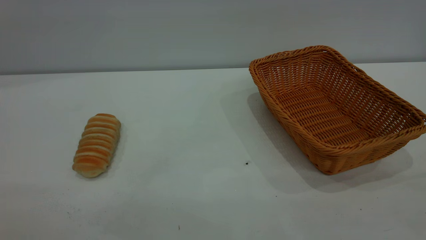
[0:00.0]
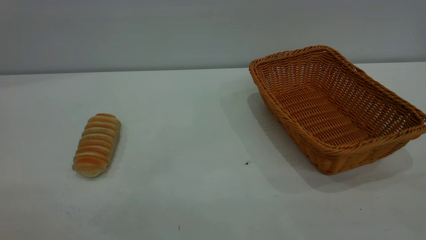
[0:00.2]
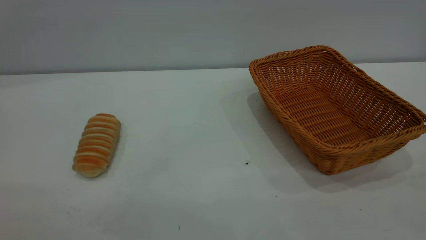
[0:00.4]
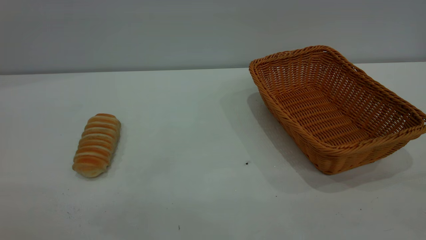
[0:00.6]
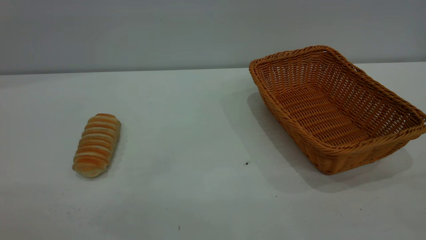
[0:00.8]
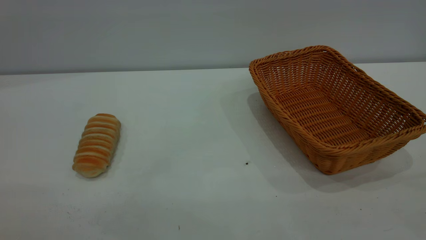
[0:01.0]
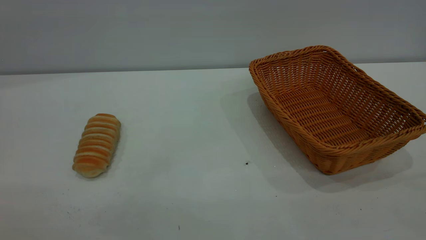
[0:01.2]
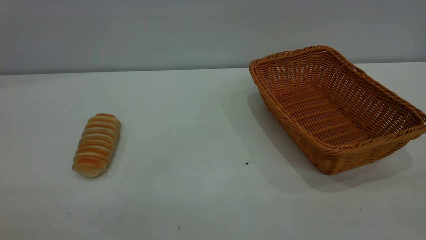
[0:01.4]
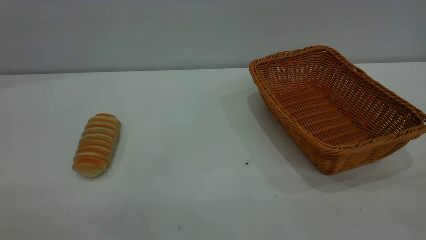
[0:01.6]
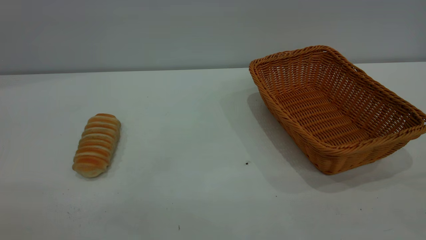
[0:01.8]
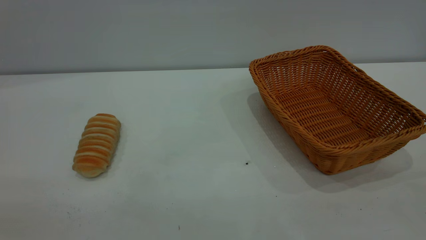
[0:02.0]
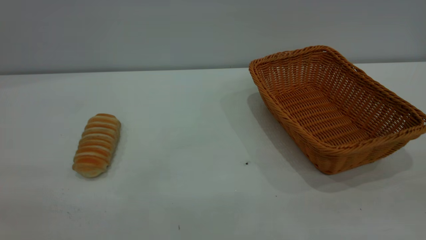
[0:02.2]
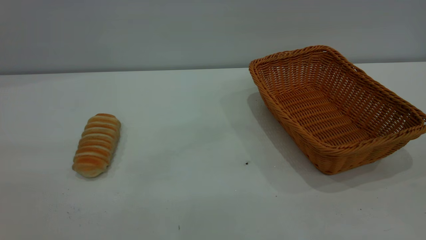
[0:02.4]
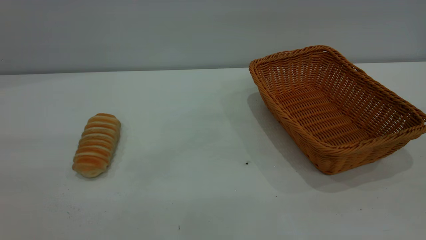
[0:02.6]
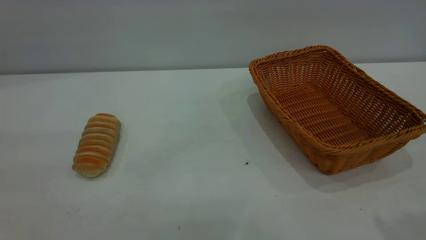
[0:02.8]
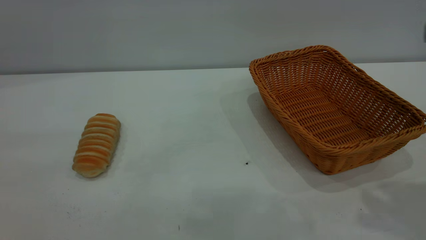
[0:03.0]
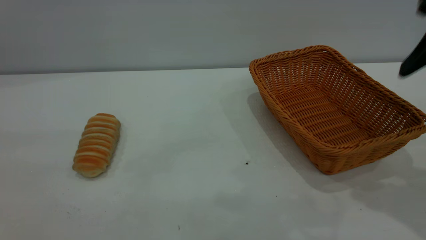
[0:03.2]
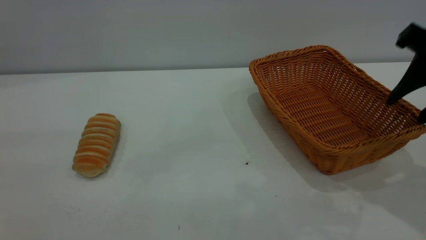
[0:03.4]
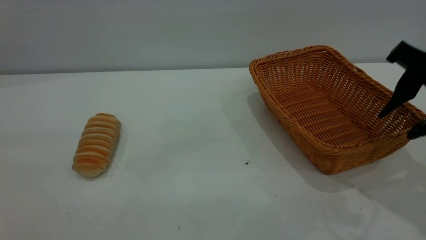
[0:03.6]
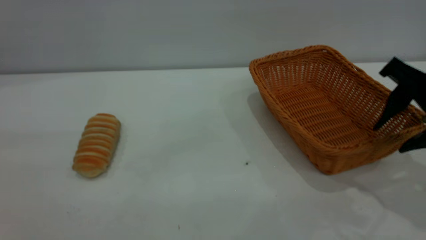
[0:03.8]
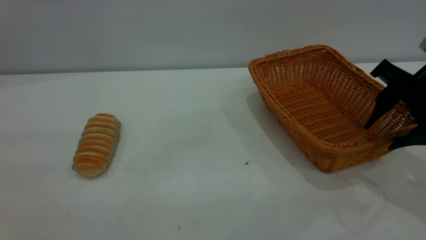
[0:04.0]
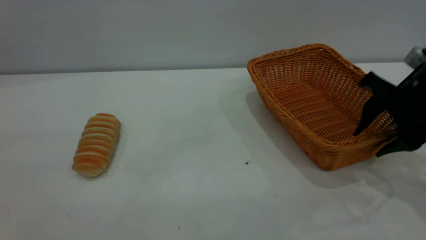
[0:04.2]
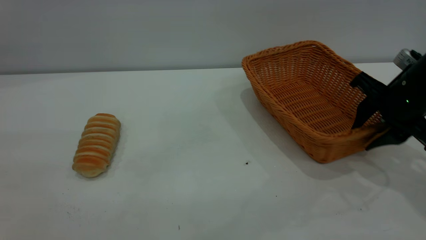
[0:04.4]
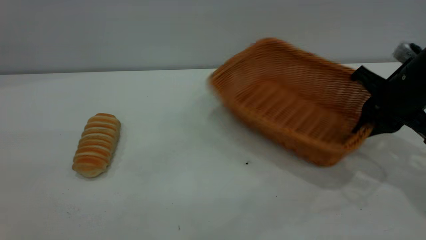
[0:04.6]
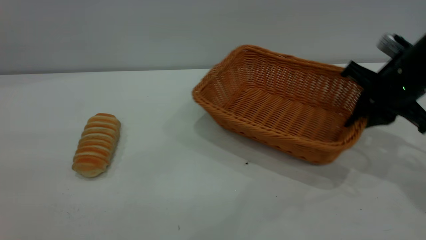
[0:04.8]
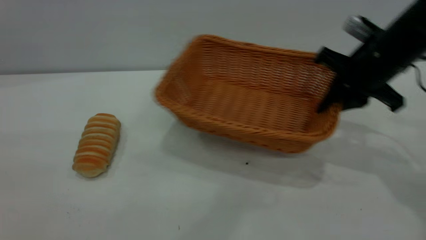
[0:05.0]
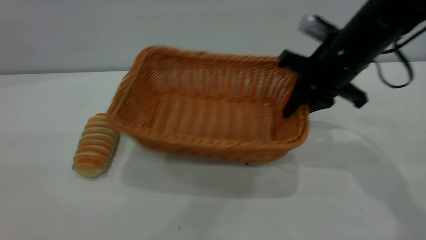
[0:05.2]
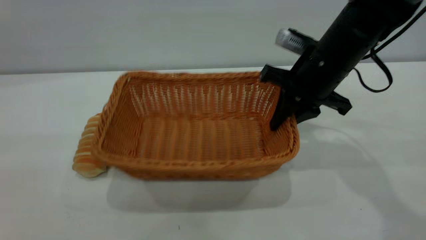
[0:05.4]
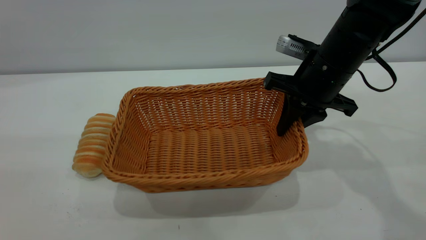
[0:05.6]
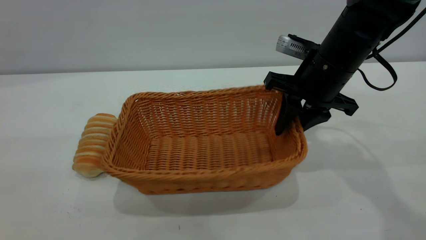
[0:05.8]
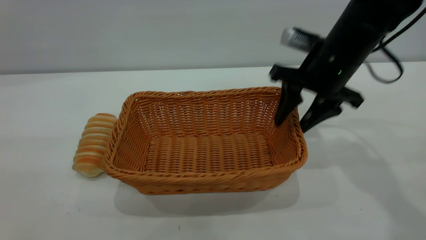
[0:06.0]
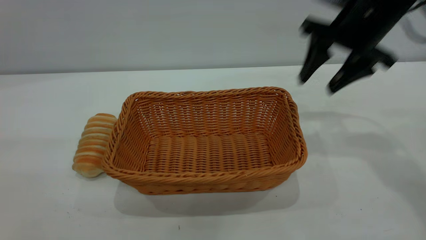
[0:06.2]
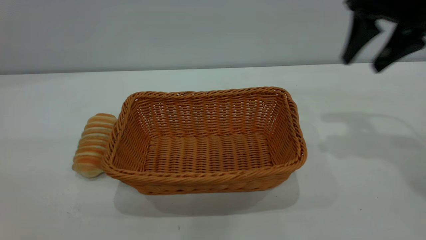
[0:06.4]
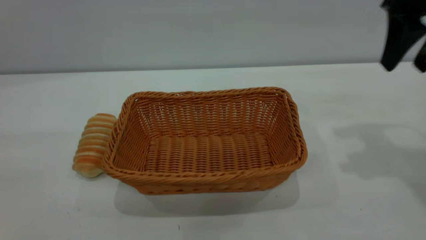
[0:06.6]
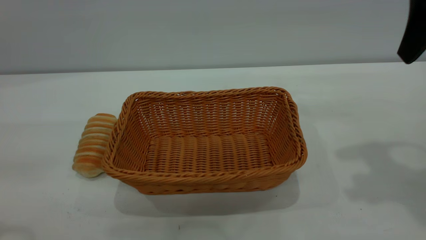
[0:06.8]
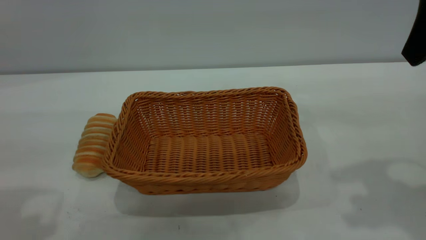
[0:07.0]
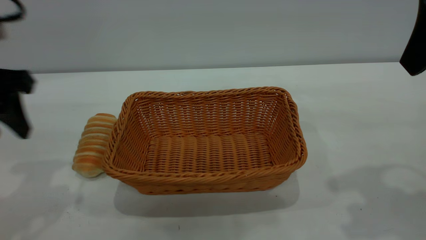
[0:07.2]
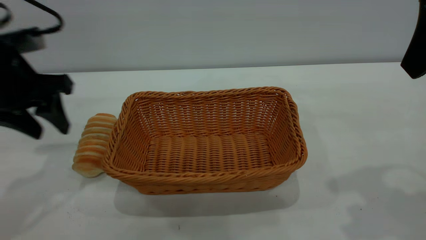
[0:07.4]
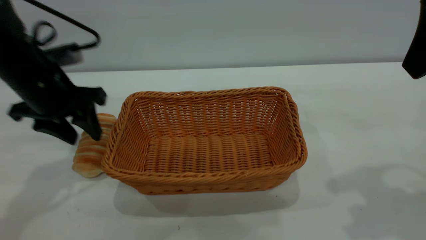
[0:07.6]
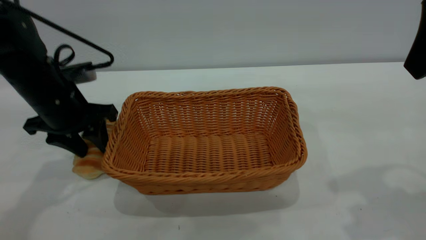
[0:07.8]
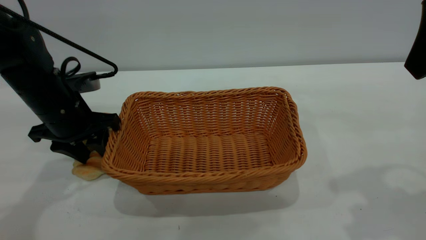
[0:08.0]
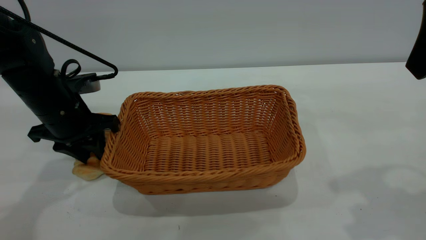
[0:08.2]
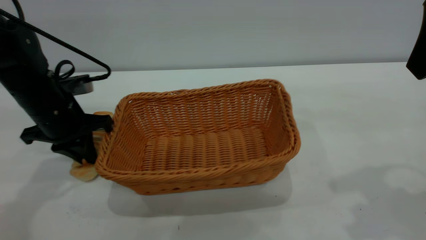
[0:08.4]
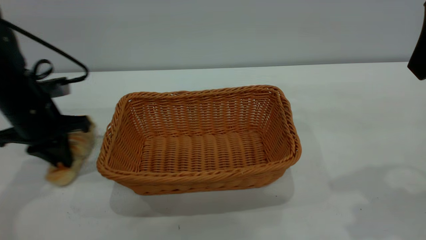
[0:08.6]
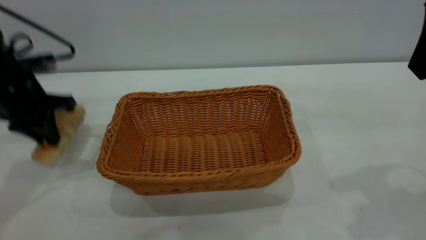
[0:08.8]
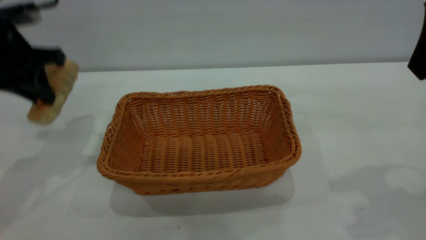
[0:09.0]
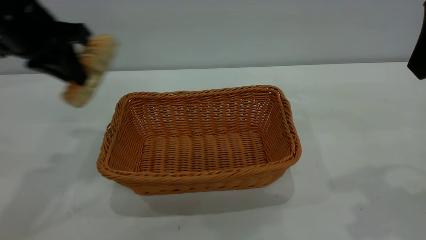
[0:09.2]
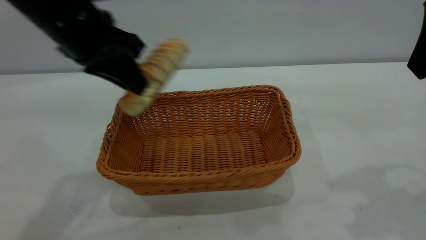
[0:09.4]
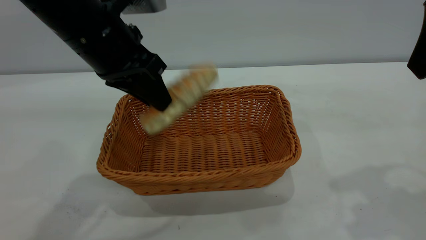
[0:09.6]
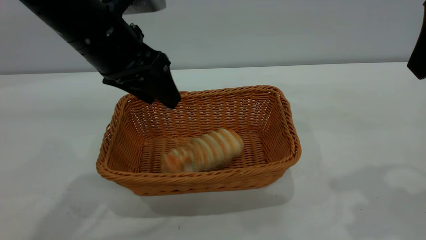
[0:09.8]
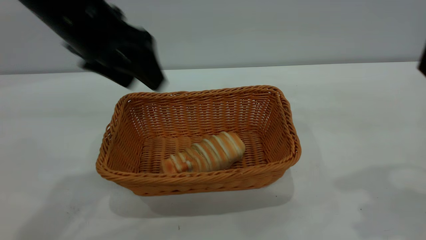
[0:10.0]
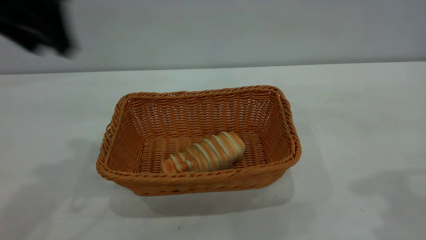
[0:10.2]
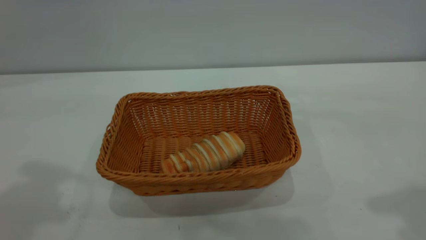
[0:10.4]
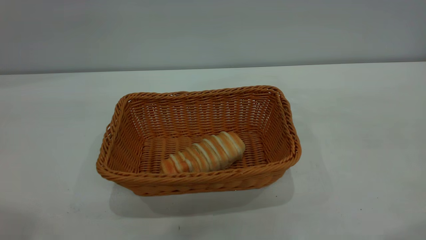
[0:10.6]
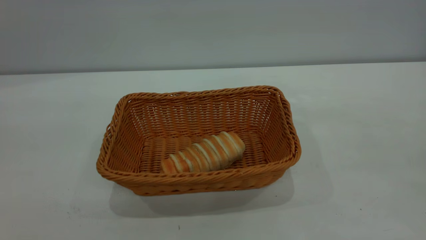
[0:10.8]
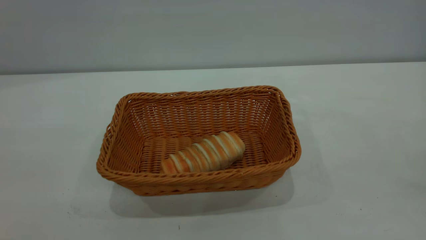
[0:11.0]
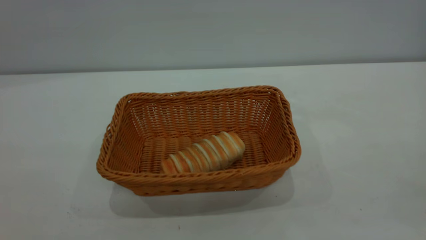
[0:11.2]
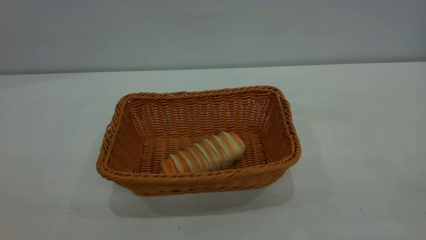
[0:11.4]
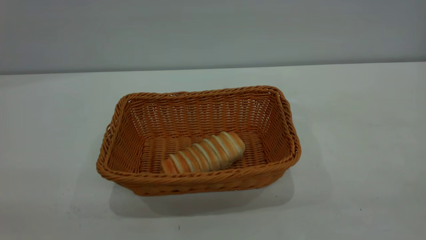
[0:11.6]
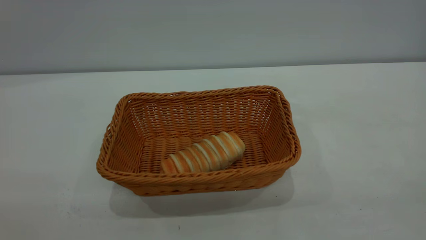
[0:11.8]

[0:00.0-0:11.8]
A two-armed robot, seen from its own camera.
Task of the whole recording: One hand grasps the yellow basket and places it in the middle of the table, while the other hand picks up the long bread and puts it into the yellow basket.
Step, 0:00.0 to 0:06.0: Move the basket to the center of view.
Step, 0:09.0 to 0:10.0: place the bread into the basket.
0:00.0 to 0:01.4: Both grippers stay about where they are.
0:03.0 to 0:04.4: The right gripper heads downward and forward, covering roughly 20 cm, and closes up.
0:04.4 to 0:06.0: The right gripper heads to the left, covering approximately 10 cm, and opens its fingers.
0:06.0 to 0:07.4: The left gripper heads forward and downward, covering roughly 30 cm, while the right gripper heads upward, backward and to the right, covering roughly 20 cm.
0:07.4 to 0:08.8: The left gripper moves about 10 cm downward and comes back, and closes up.
0:08.8 to 0:10.4: The left gripper moves upward and backward, some 25 cm, and opens; the right gripper is displaced backward by some 5 cm.

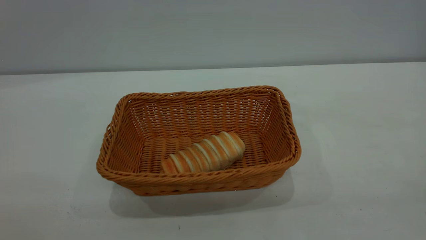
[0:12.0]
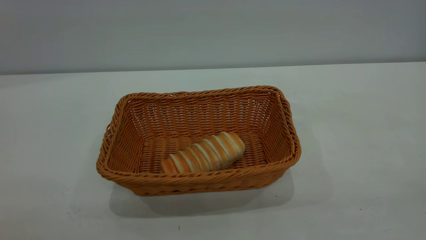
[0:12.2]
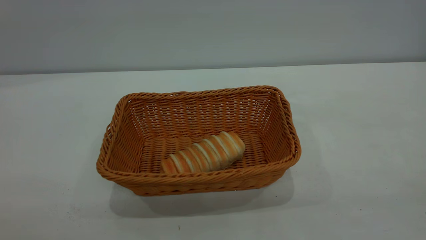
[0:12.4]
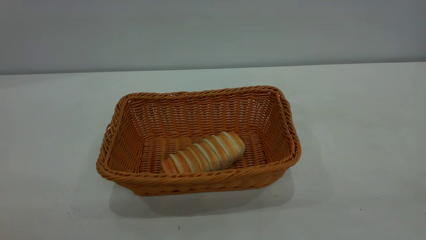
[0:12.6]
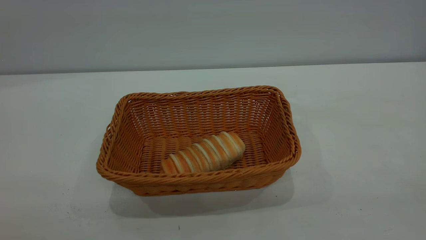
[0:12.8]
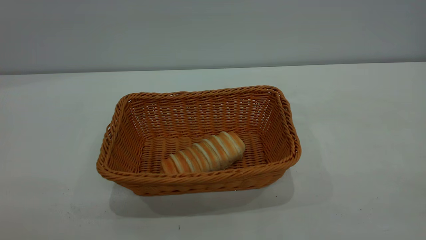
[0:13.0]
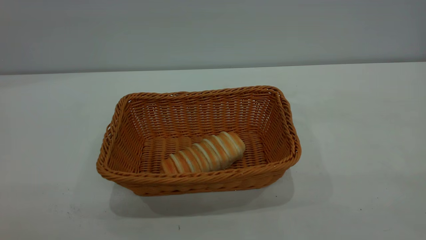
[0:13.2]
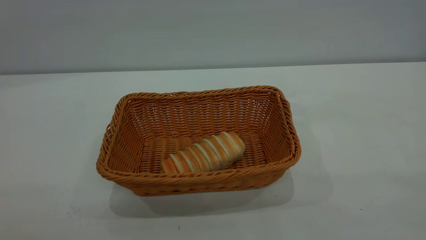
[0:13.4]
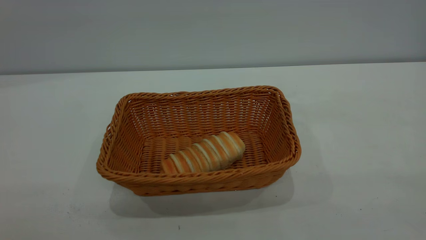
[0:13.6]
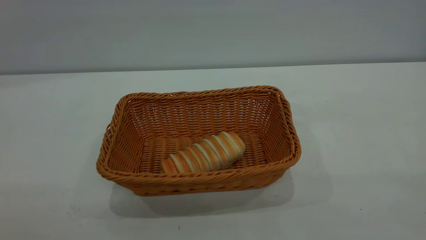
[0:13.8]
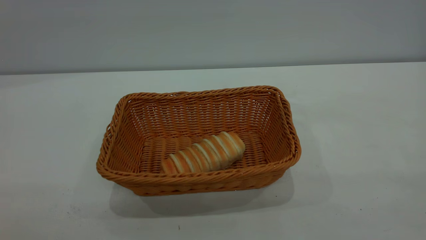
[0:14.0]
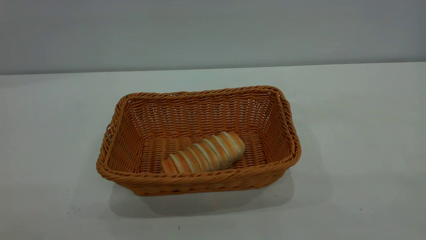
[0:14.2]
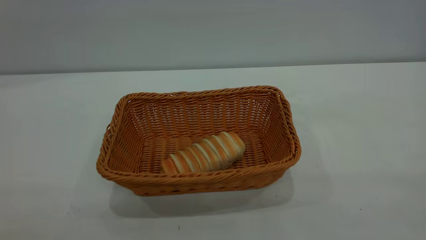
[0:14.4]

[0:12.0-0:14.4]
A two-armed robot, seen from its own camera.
Task of the whole recording: One hand grasps the yellow basket and places it in the middle of the table, while the other hand picks up the long bread and puts it into the yellow basket.
0:13.2 to 0:14.4: Neither gripper changes place.

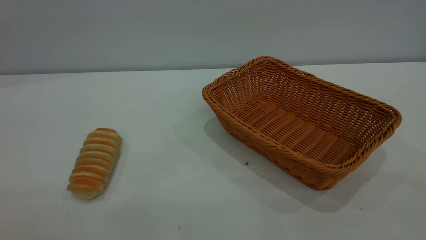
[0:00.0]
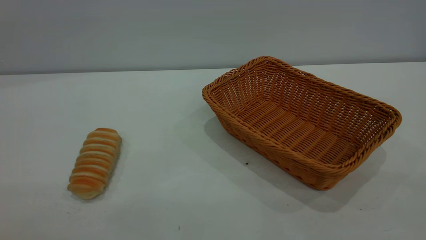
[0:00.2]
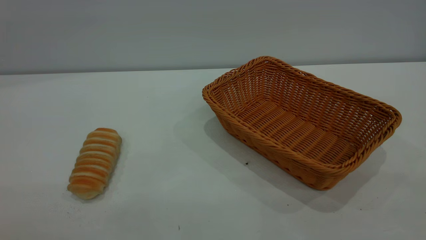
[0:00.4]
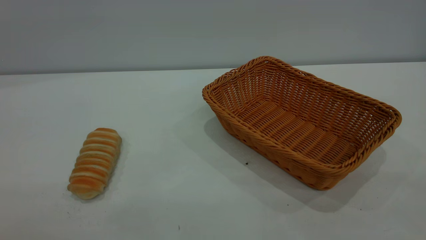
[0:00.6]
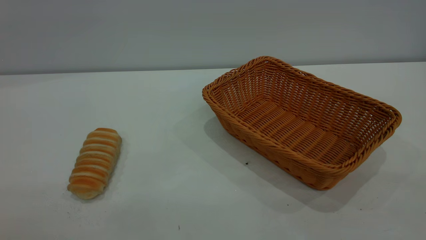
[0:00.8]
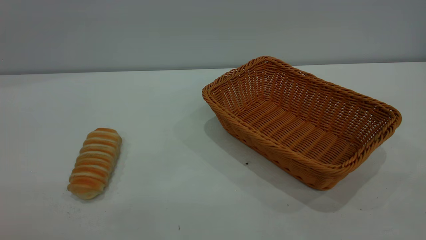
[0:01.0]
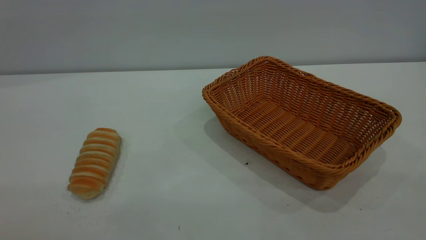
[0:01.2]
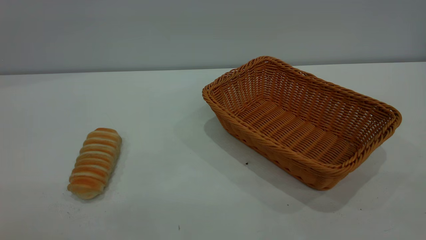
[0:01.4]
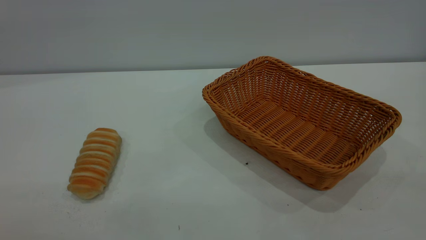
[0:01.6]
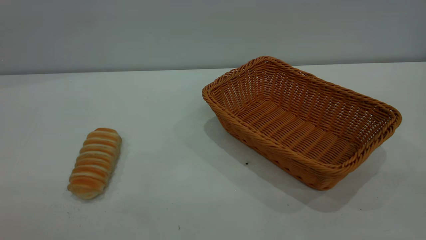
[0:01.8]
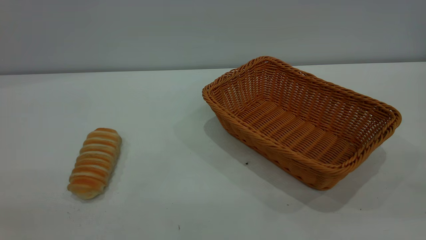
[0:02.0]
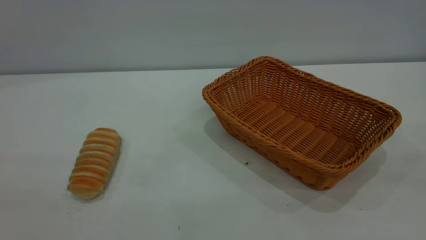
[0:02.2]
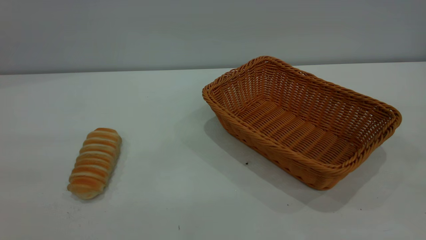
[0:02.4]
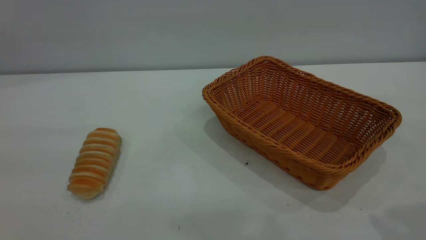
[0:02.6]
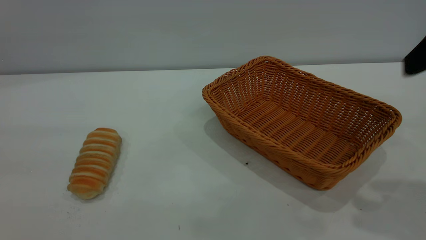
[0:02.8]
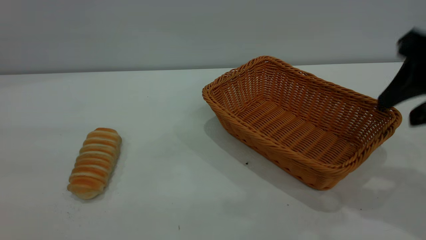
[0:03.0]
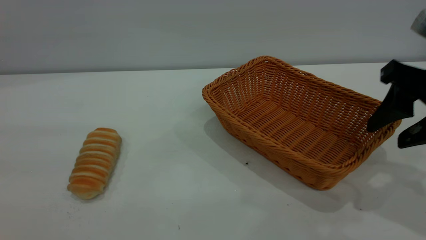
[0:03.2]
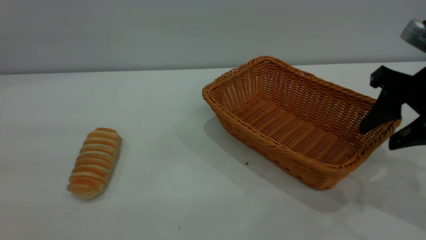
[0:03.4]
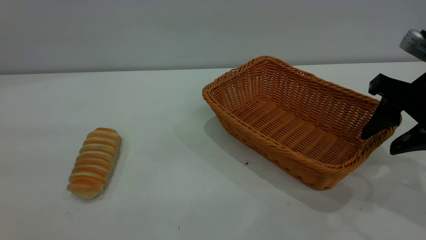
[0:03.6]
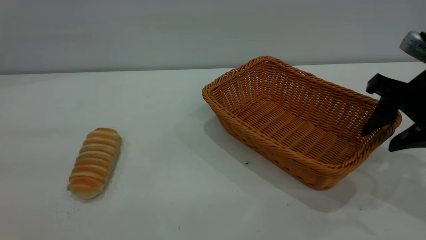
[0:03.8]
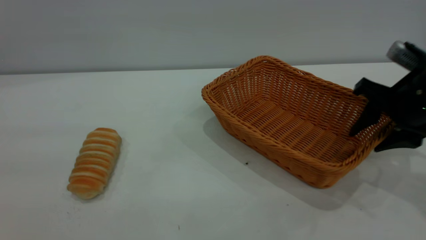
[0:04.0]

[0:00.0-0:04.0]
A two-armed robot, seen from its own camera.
Task of the whole recording: One hand grasps the yellow basket and places it in the middle of the table, while the other hand picks up the long bread and puts it into the yellow basket.
0:00.0 to 0:01.4: Neither gripper changes place.
0:02.6 to 0:04.0: The right gripper travels downward and forward by about 25 cm.
